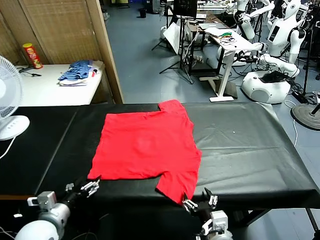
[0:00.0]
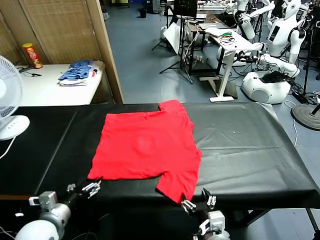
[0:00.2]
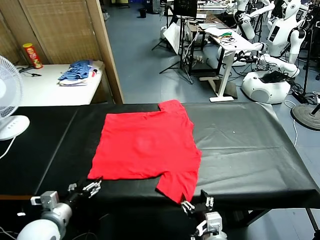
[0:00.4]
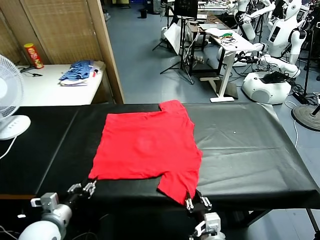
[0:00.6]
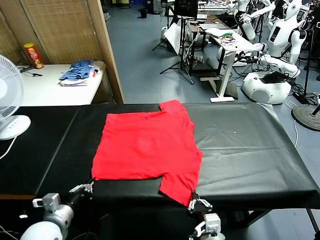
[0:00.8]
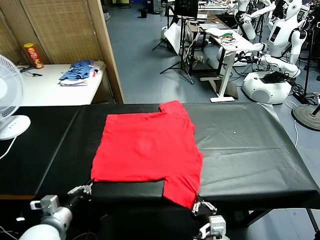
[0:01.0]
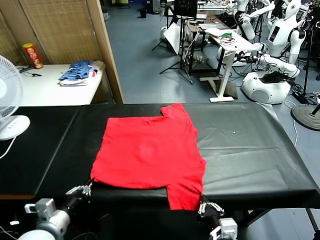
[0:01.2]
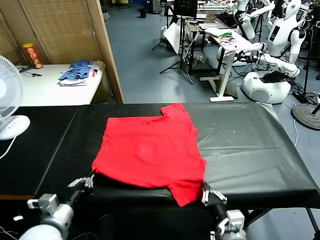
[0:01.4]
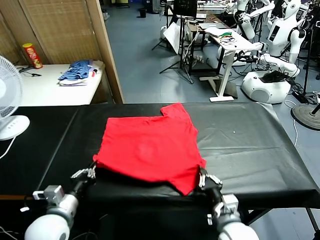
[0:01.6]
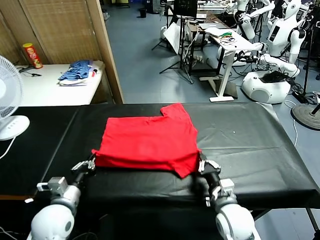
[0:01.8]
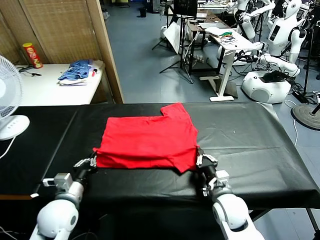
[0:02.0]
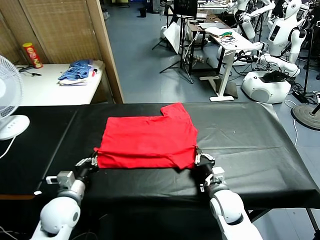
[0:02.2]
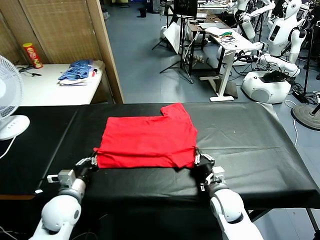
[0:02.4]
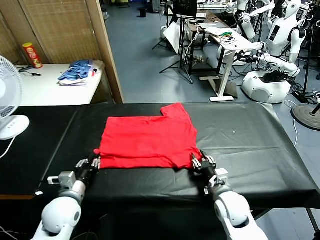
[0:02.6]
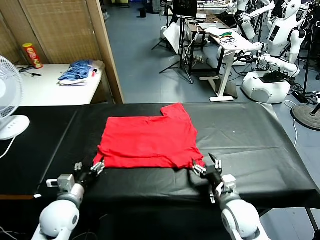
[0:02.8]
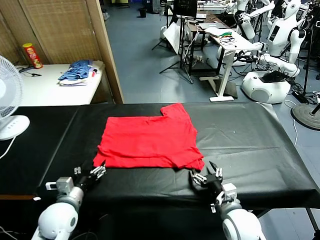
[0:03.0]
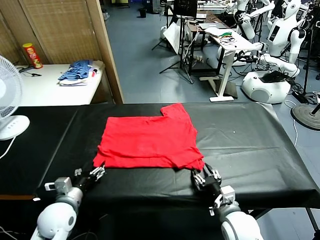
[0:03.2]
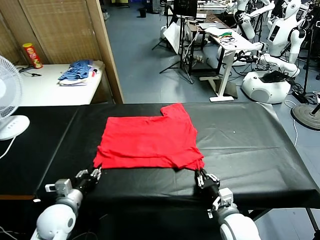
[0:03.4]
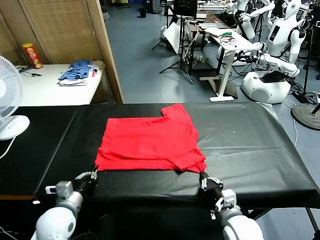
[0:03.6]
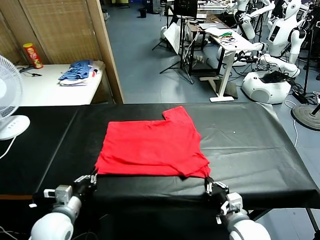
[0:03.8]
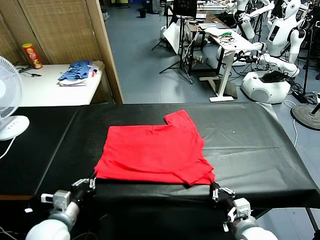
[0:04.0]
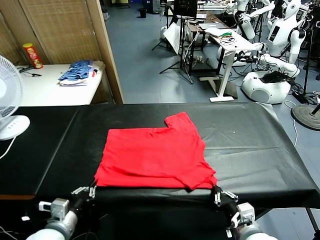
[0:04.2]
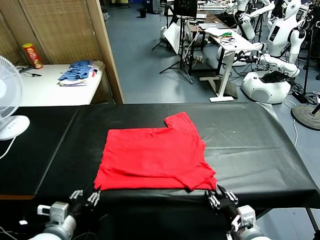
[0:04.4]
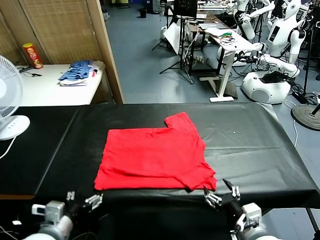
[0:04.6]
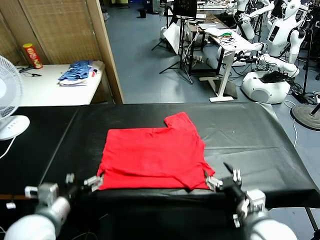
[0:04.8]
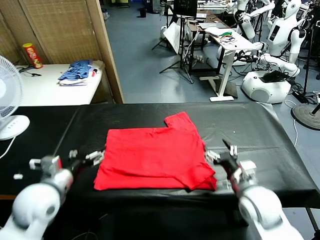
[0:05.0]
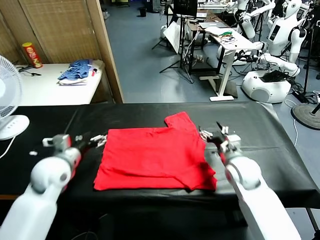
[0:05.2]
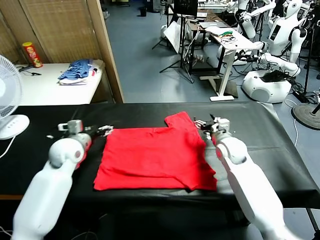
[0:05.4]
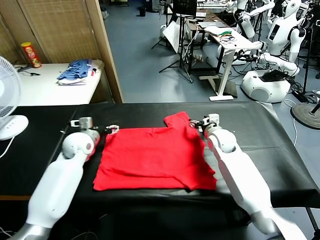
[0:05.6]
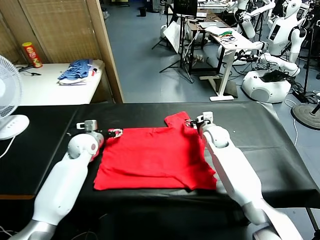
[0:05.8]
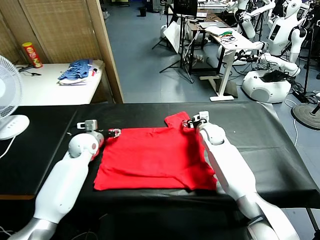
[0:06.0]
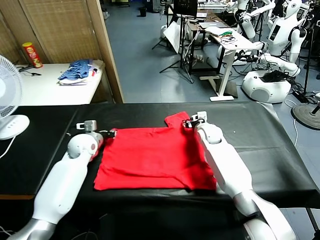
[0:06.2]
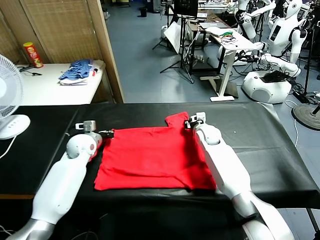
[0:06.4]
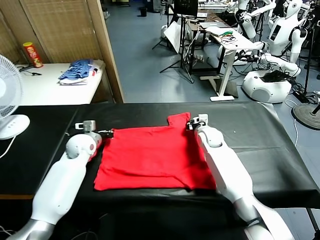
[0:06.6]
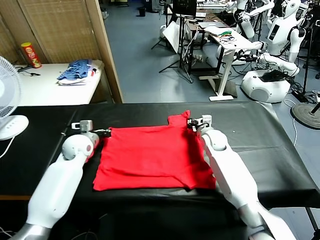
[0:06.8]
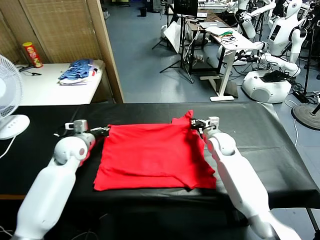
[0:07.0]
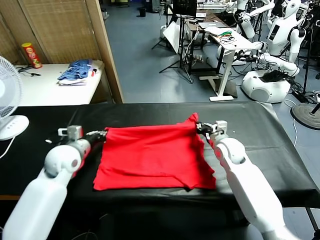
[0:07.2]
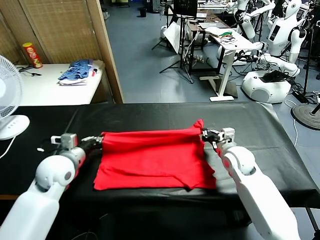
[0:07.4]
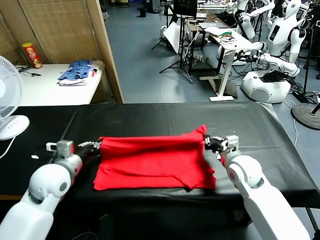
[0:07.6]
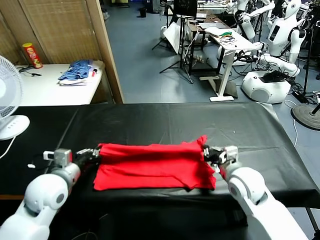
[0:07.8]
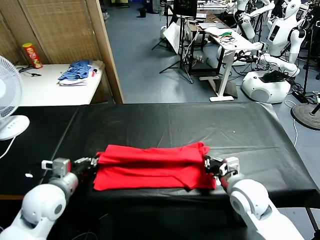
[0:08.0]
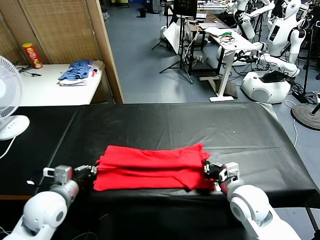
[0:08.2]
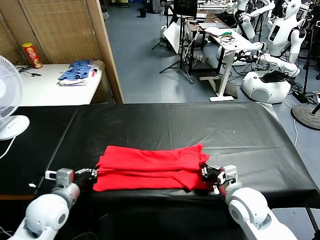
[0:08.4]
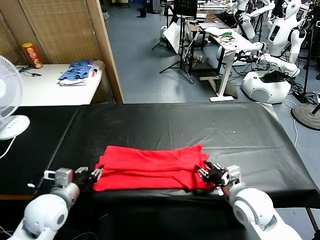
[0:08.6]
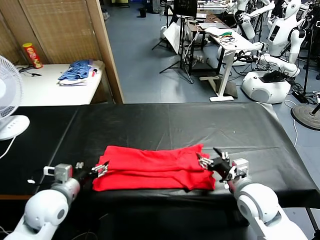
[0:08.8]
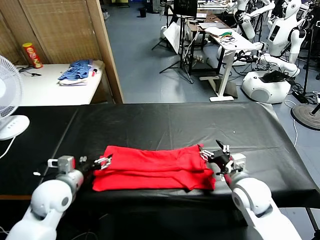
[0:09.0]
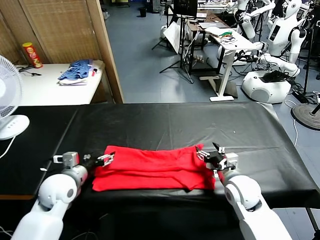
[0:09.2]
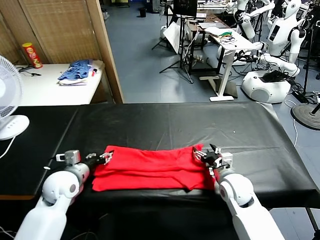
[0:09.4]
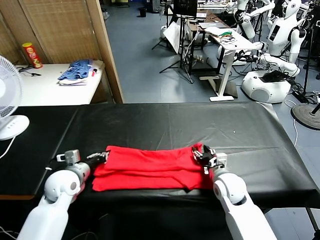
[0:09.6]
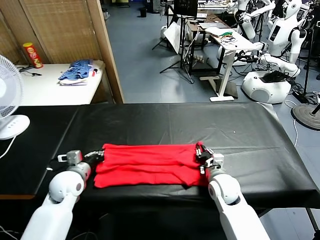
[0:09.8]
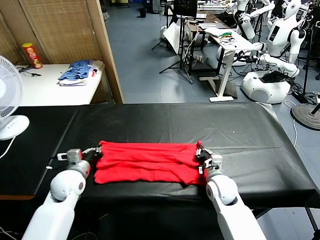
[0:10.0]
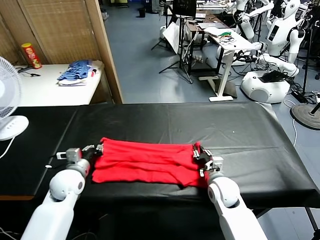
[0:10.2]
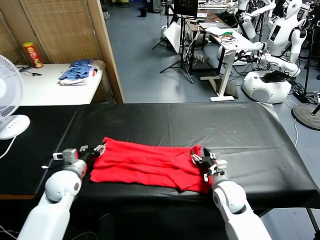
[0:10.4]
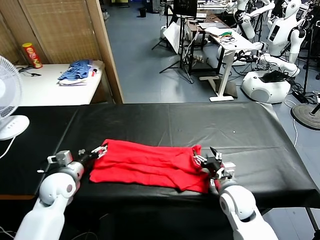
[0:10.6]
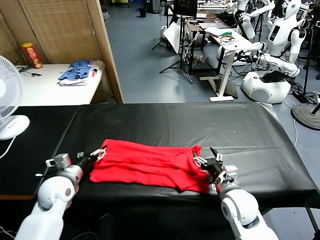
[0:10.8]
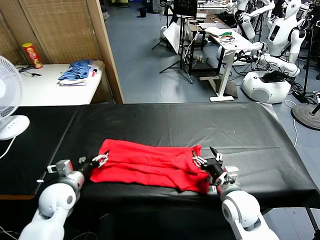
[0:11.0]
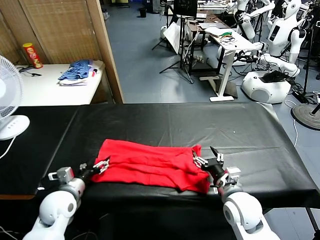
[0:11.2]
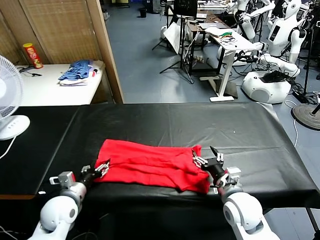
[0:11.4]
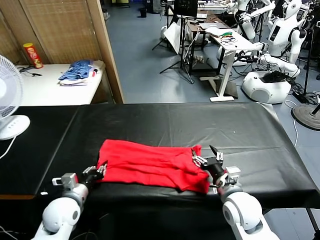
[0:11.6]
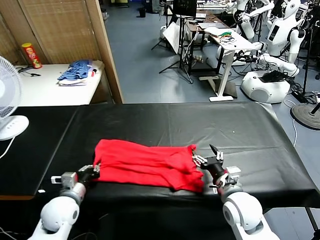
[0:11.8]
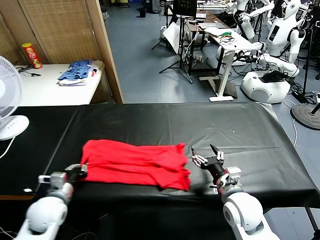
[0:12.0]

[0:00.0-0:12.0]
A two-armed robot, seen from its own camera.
Task of the whole recording: fold and organize the clothes.
Step, 0:00.0 to 0:00.8: use both grippers simultaneously to clamp the lower edge of the clothing fabric.
Step, 0:01.0 to 0:02.8: use both grippers to drag the lower edge of the fabric forward and fold it over the upper edge.
Step, 0:03.0 to 0:04.4: Drag the clothes downward with both gripper.
Step, 0:04.8 to 0:06.6: use both grippers simultaneously to clamp the upper edge of the clothing fabric.
Step, 0:06.8 to 0:08.8: use both grippers to drag the upper edge of the fabric backward and fold it over the lower edge.
Step, 0:09.0 to 0:11.6: use the left gripper to clamp the left edge of the fabric.
0:01.6 to 0:03.0: The right gripper opens up; the left gripper shifts by approximately 5 cm, and opens.
0:03.0 to 0:04.4: The right gripper travels upward and backward by roughly 10 cm, and opens. Meanwhile the left gripper heads backward, covering approximately 10 cm, and closes and opens again.
0:04.4 to 0:06.0: The grippers both shift forward by approximately 35 cm.
0:06.0 to 0:07.6: Both grippers move backward, some 20 cm. The right gripper closes; the left gripper closes up.
0:07.6 to 0:09.0: The left gripper opens. The right gripper opens up.
0:09.0 to 0:10.4: The right gripper closes, then opens again. The left gripper goes approximately 5 cm forward, and closes, then reopens.
0:10.4 to 0:12.0: The left gripper is displaced backward by approximately 10 cm, and closes; the right gripper ends up approximately 5 cm from where it was.

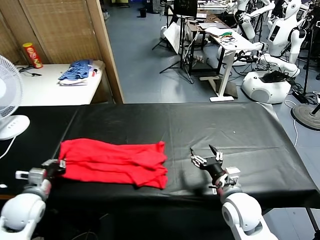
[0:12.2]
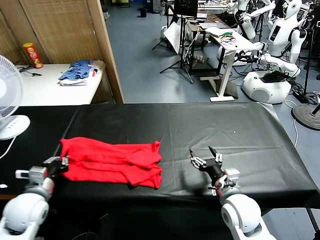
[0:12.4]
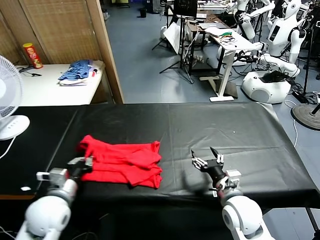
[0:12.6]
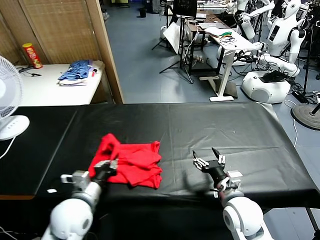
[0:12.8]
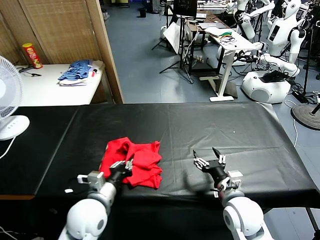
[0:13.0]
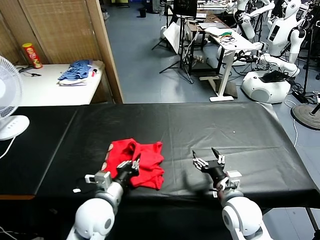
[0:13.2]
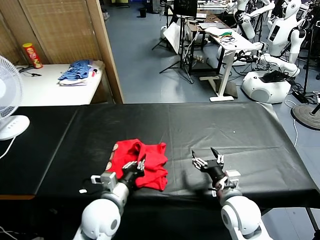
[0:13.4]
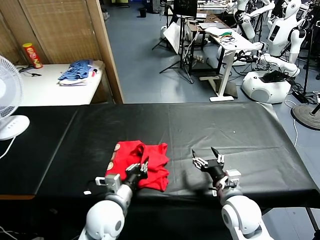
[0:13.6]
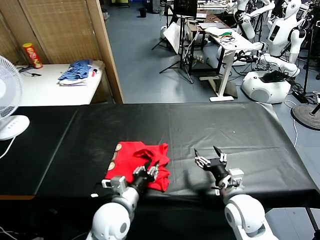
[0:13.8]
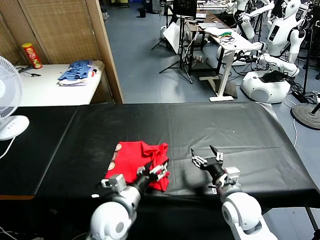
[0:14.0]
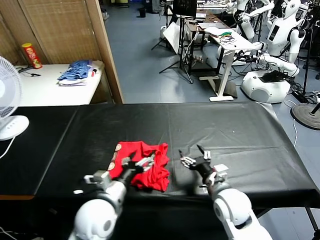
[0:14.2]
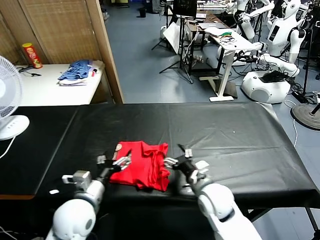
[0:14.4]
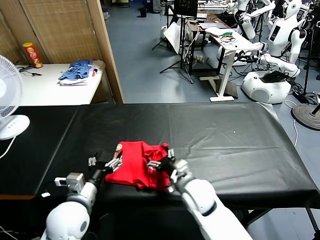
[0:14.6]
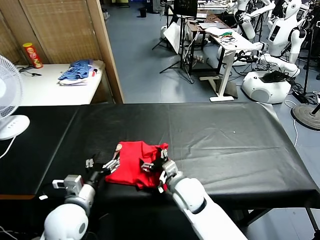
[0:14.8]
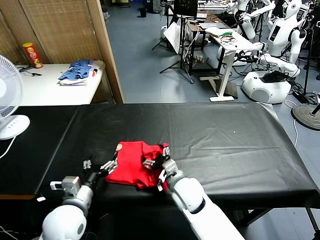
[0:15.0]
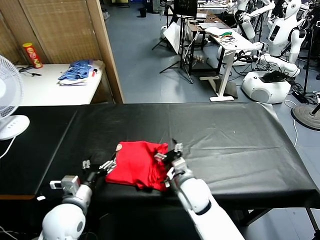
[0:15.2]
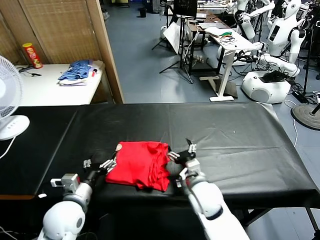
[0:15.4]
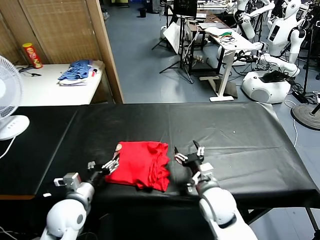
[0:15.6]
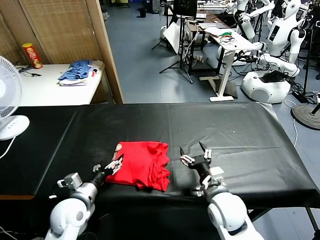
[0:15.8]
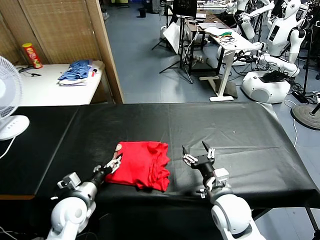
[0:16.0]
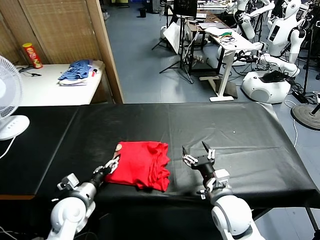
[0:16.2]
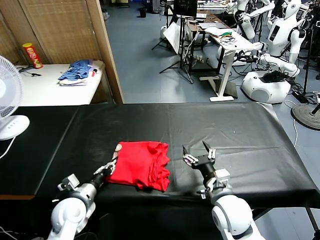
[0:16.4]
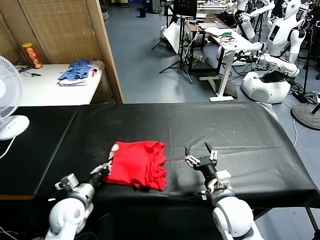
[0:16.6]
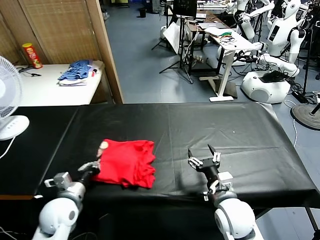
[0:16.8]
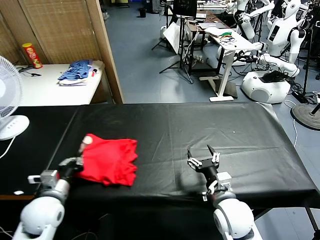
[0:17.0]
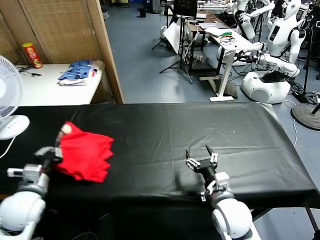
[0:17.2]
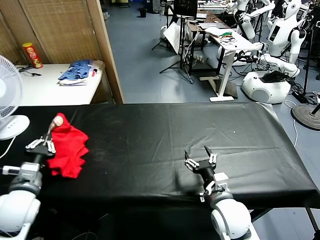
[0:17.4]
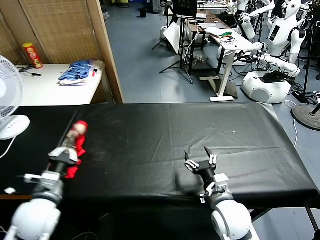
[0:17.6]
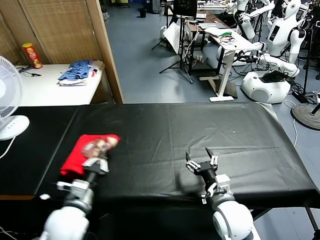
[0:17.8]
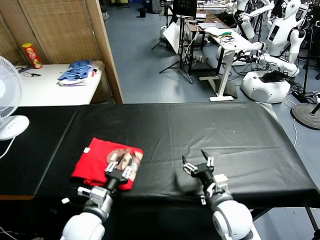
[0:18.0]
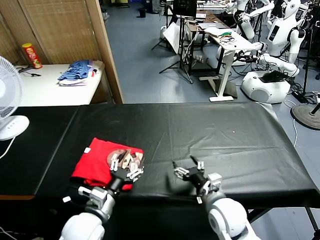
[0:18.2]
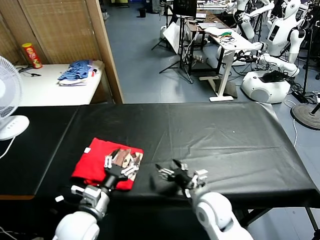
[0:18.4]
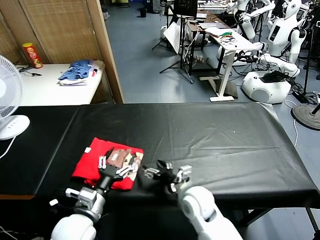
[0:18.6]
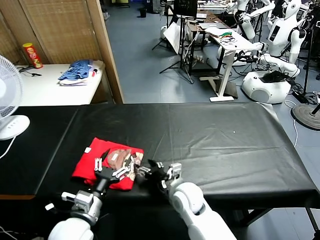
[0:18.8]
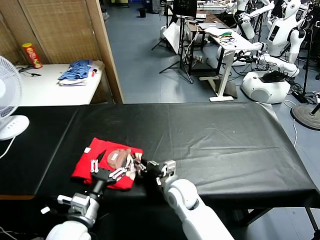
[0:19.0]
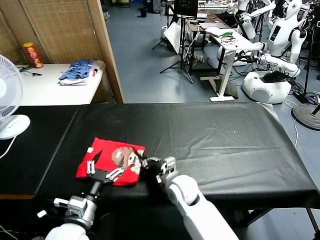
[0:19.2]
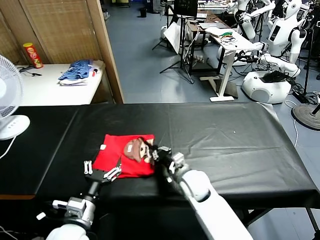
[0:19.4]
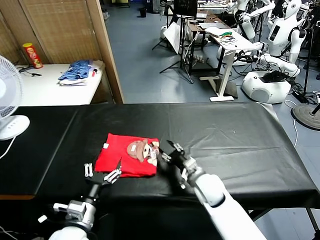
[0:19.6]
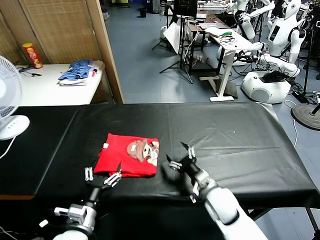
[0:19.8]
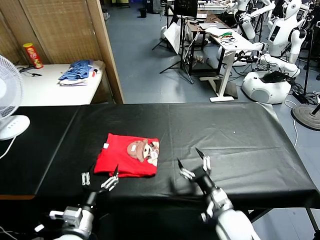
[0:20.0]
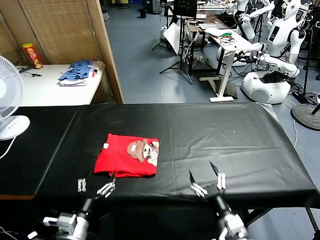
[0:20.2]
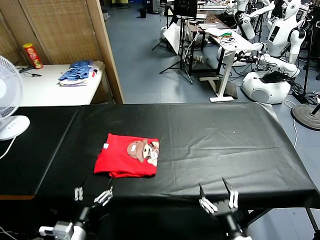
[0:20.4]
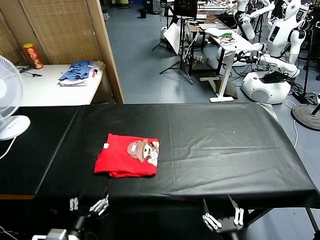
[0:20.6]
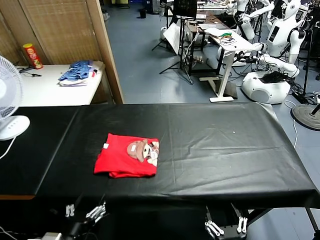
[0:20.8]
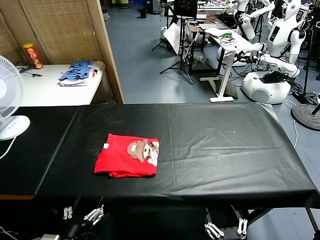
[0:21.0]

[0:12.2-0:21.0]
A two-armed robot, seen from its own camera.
Task of the whole recording: fold and organize the clothes.
Step, 0:12.2 to 0:14.0: use the left gripper to drag the left edge of the fabric to the left and folds it over the right edge.
Step, 0:14.2 to 0:18.2: Flip the folded clothes over with left gripper.
Step, 0:18.6 to 0:19.6: Drag the clothes to the center of the table.
0:12.2 to 0:13.6: The left gripper is displaced to the right by some 25 cm.
0:13.6 to 0:15.2: The left gripper travels to the left by approximately 10 cm, and opens. The right gripper shifts roughly 15 cm to the left and forward.
0:15.2 to 0:16.6: The left gripper moves downward, some 5 cm, and closes up; the right gripper heads to the right and backward, covering about 10 cm.
0:16.6 to 0:18.0: The left gripper goes approximately 10 cm to the right and backward.
0:18.0 to 0:19.6: The right gripper moves forward, about 10 cm, and closes up. The left gripper opens its fingers.
0:19.6 to 0:21.0: The right gripper shifts some 30 cm backward, and opens. The left gripper travels backward by some 10 cm.
